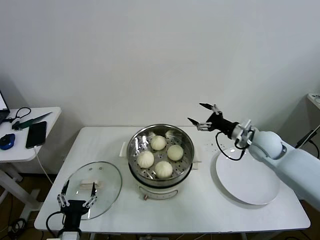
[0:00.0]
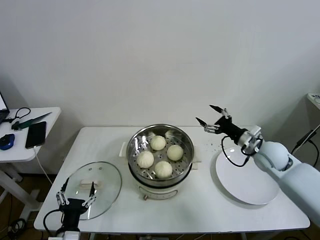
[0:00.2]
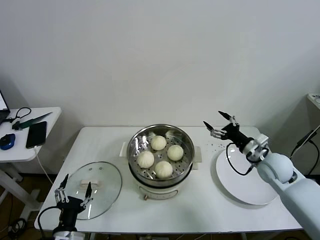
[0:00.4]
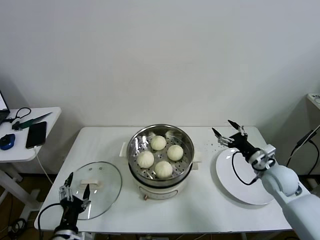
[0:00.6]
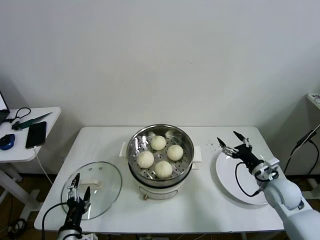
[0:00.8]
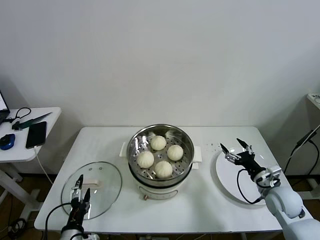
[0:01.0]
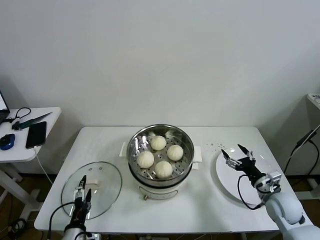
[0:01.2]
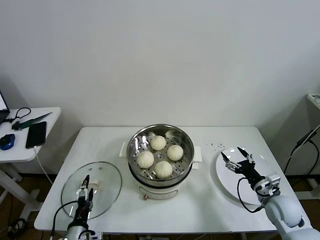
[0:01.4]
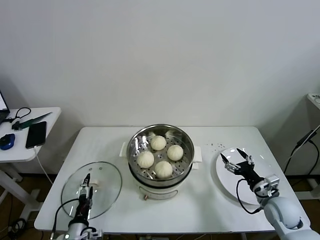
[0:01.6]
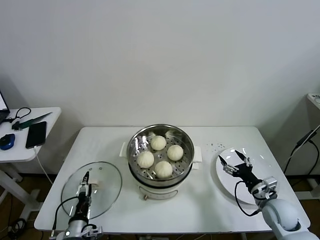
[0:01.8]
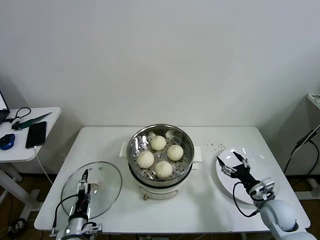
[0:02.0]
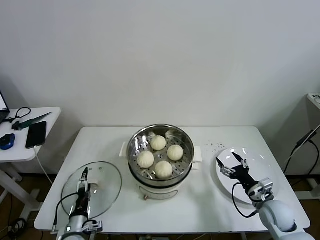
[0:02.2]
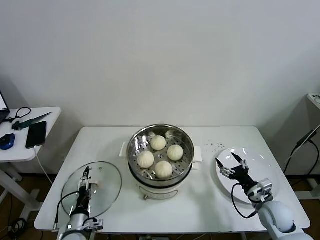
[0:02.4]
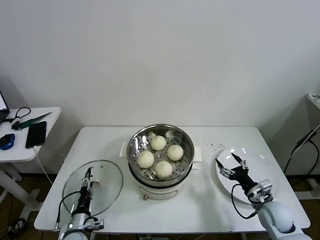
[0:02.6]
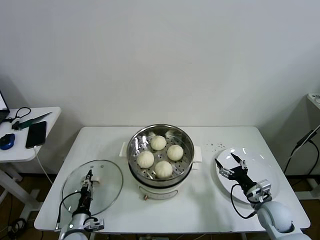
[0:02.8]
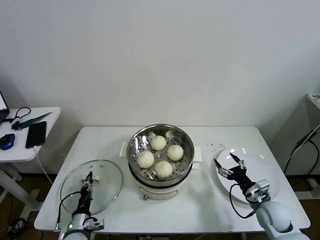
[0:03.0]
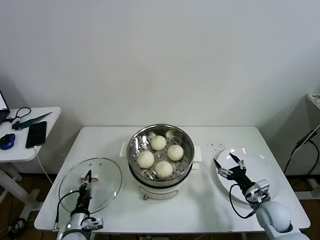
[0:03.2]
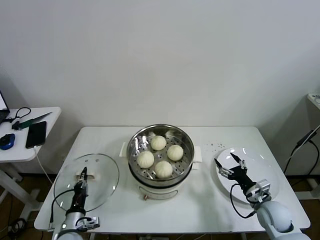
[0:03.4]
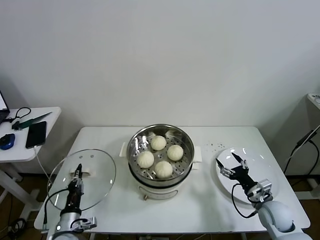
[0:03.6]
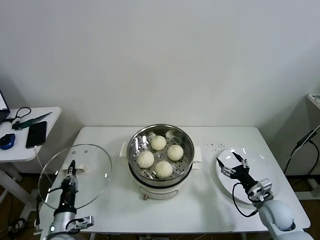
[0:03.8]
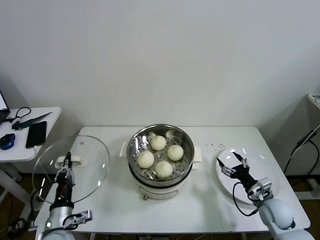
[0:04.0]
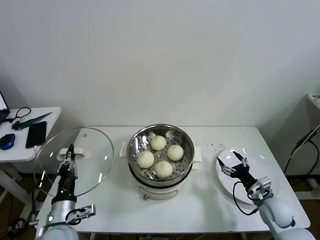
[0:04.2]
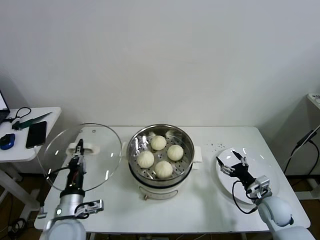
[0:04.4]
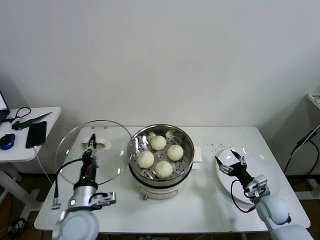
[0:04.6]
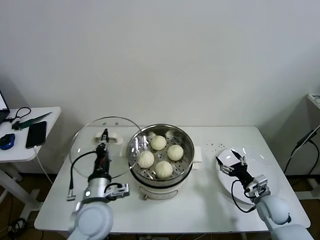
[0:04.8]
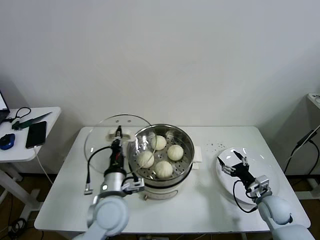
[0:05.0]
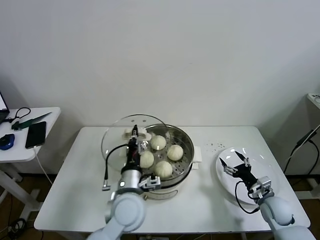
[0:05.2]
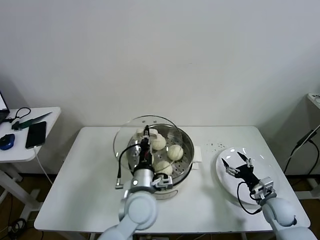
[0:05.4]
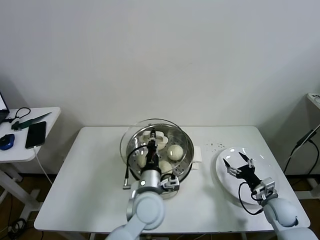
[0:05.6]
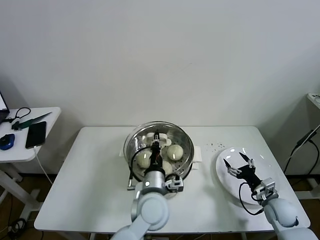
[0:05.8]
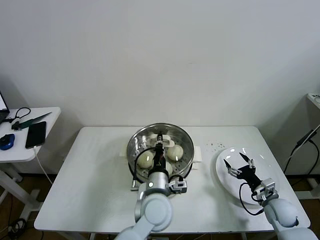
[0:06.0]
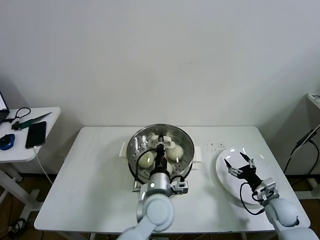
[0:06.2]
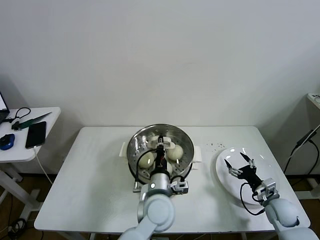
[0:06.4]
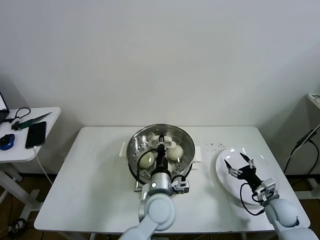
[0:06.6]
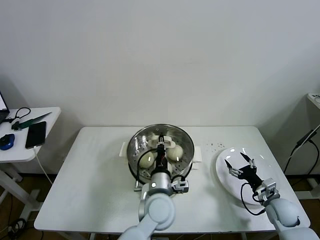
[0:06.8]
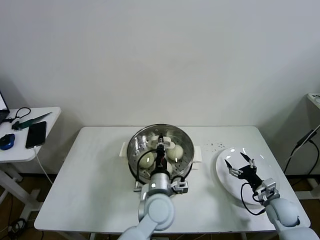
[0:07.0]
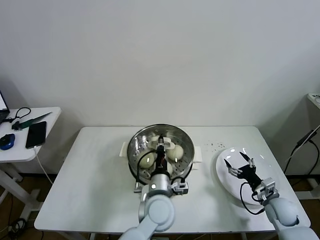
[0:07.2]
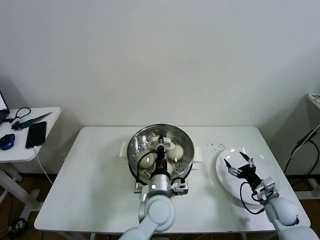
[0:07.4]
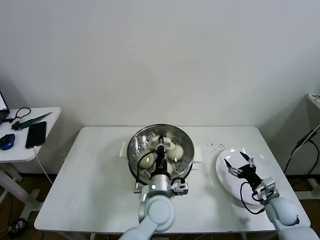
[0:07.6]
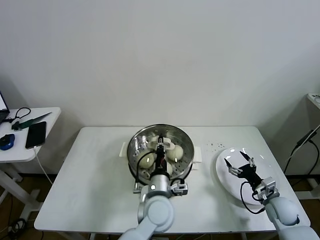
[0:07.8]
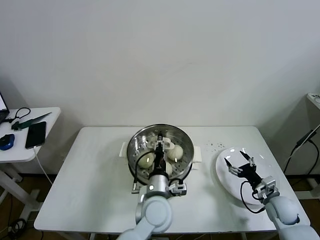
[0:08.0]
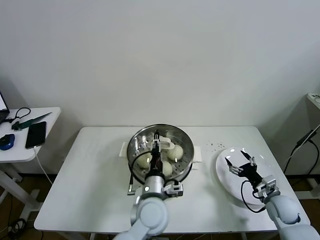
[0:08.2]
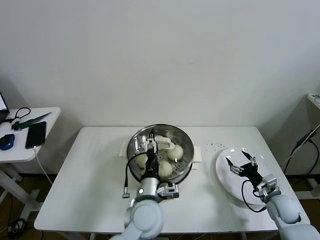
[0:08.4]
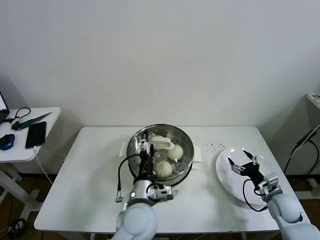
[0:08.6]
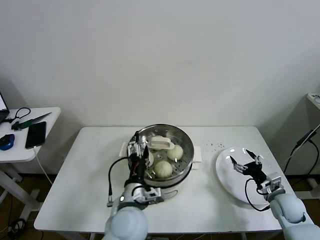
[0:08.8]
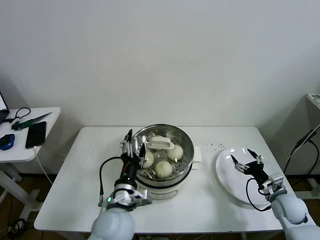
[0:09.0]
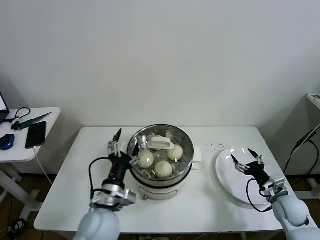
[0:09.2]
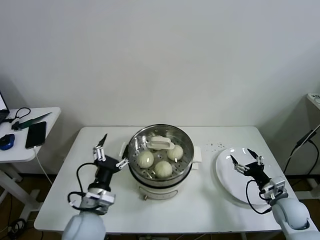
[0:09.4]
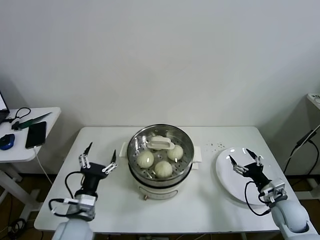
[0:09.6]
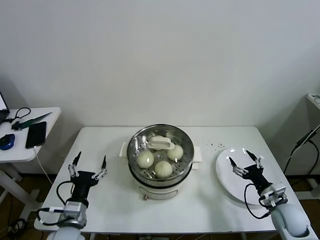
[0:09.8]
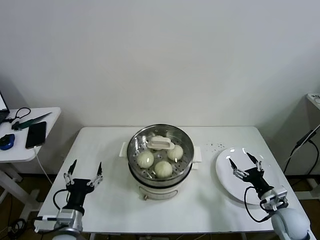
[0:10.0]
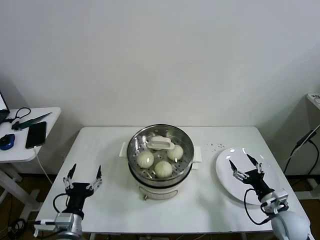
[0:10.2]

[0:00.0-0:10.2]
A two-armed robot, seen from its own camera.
Task of the whole recording: take steamed baozi put them in steamer then cover it.
Step, 0:00.0 to 0:03.0: Grasp the pot lid with left gripper.
Step, 0:03.2 to 0:08.0: Place the pot lid on the steamer with left gripper.
0:00.0 to 0:01.4: The right gripper goes some 20 cm downward and backward. The left gripper heads downward, covering roughly 5 cm.
0:01.4 to 0:03.0: The left gripper heads forward and downward, covering some 10 cm, and closes its fingers.
0:03.0 to 0:04.4: The left gripper is displaced upward by approximately 20 cm.
0:04.4 to 0:05.8: The left gripper moves to the right, roughly 25 cm.
0:05.8 to 0:07.2: The grippers make only small movements.
0:07.2 to 0:08.8: The left gripper travels to the left by roughly 5 cm, and opens up.
0:08.8 to 0:10.2: The left gripper is displaced to the left by some 20 cm. The right gripper shifts some 5 cm backward.

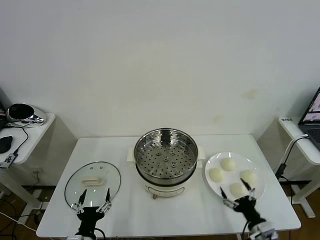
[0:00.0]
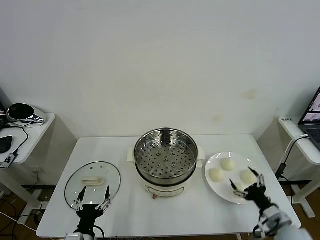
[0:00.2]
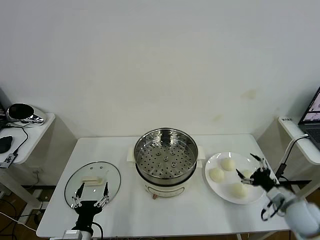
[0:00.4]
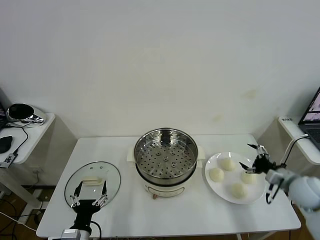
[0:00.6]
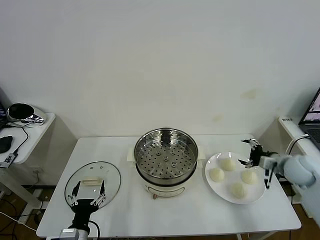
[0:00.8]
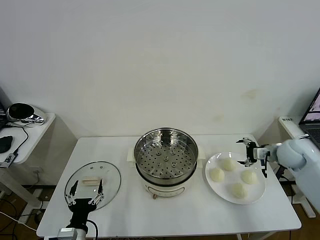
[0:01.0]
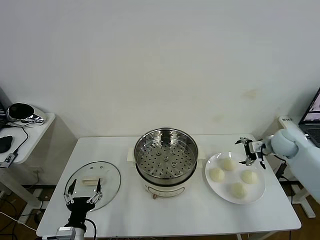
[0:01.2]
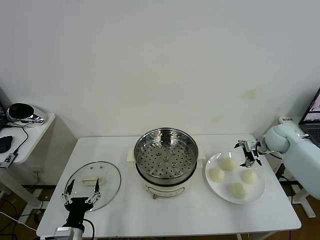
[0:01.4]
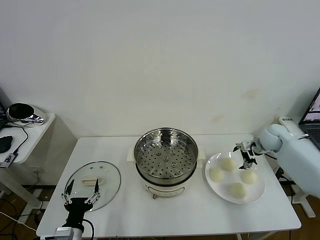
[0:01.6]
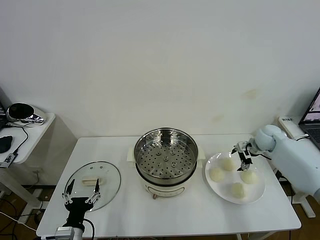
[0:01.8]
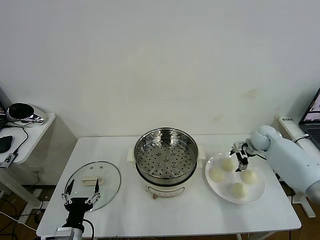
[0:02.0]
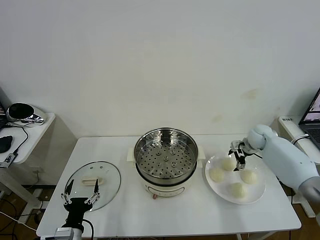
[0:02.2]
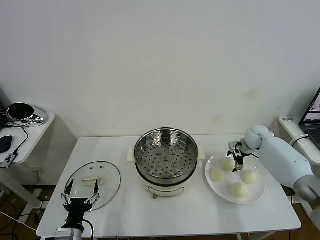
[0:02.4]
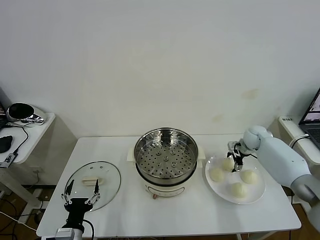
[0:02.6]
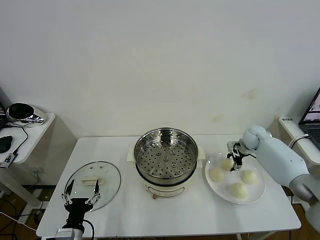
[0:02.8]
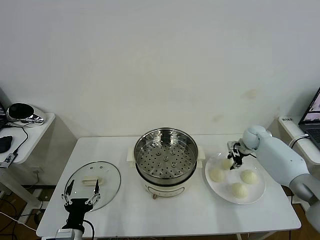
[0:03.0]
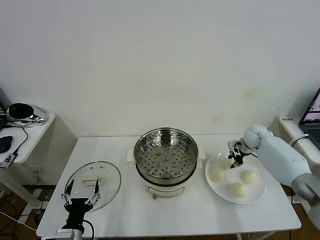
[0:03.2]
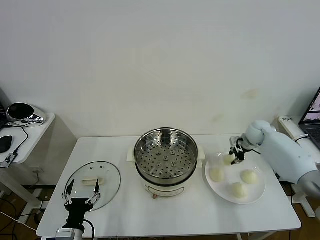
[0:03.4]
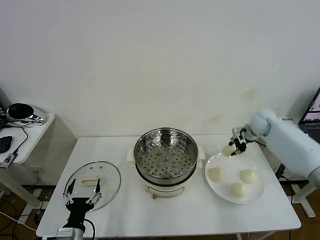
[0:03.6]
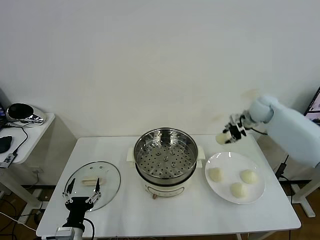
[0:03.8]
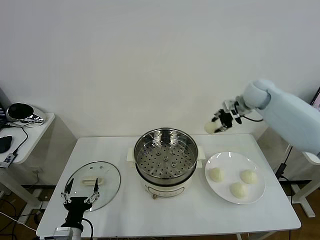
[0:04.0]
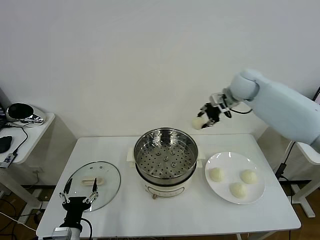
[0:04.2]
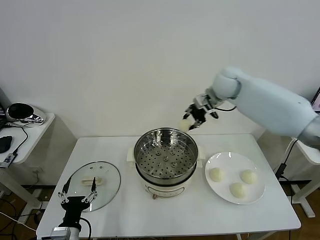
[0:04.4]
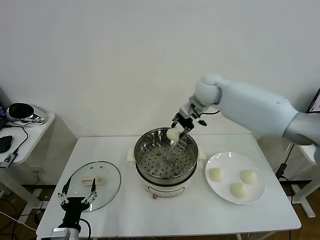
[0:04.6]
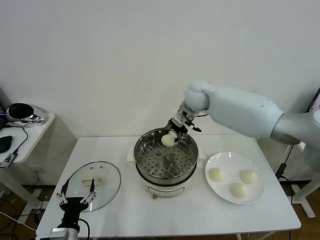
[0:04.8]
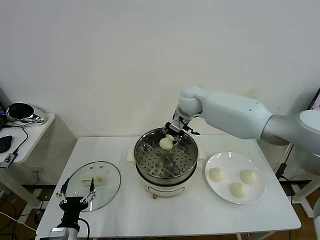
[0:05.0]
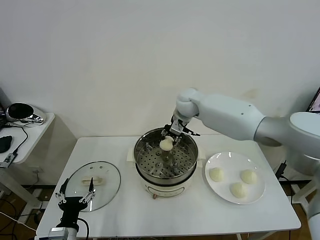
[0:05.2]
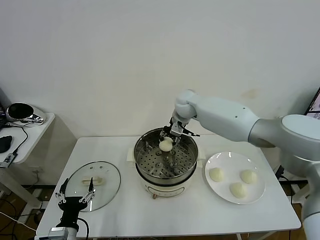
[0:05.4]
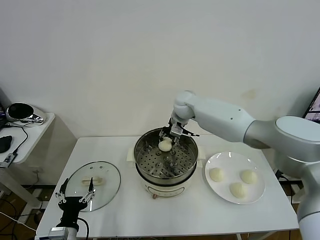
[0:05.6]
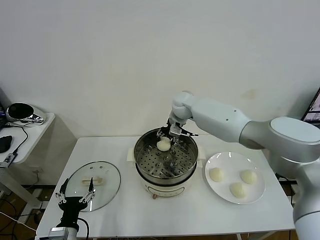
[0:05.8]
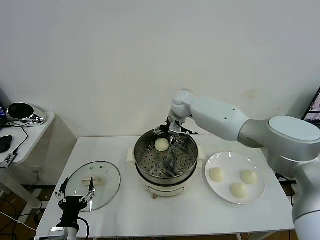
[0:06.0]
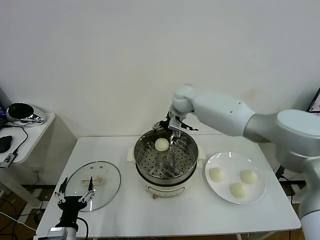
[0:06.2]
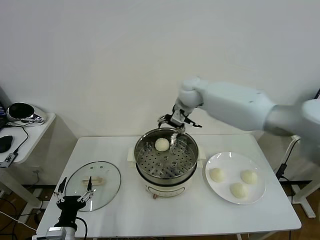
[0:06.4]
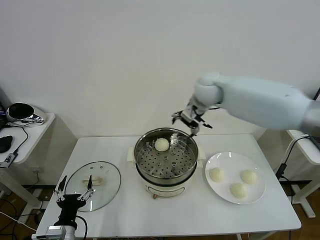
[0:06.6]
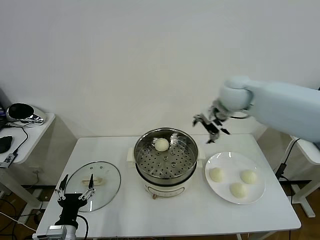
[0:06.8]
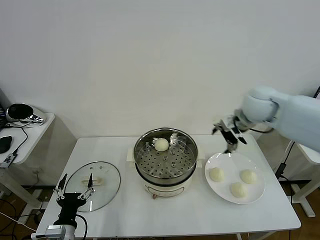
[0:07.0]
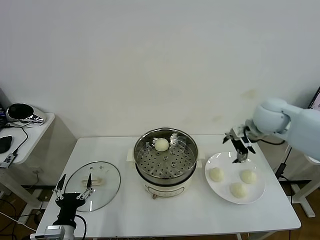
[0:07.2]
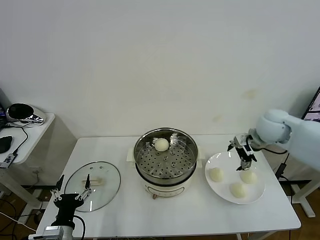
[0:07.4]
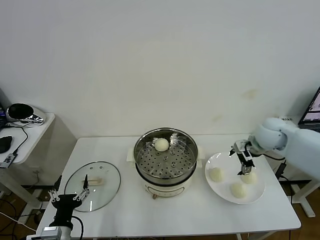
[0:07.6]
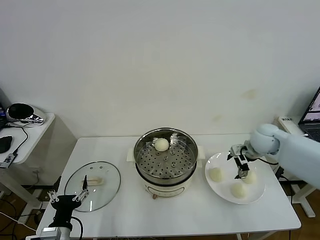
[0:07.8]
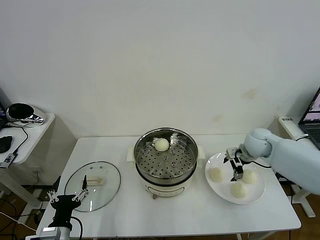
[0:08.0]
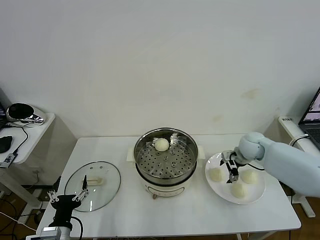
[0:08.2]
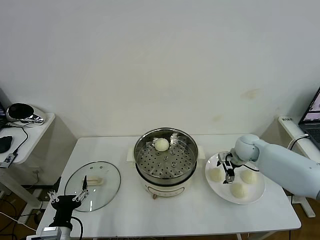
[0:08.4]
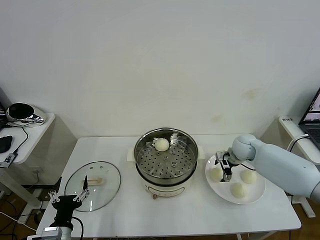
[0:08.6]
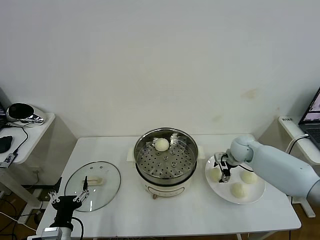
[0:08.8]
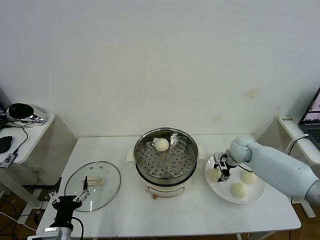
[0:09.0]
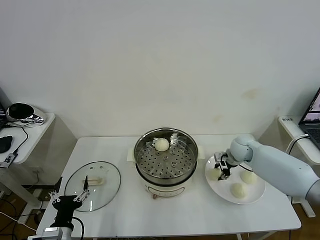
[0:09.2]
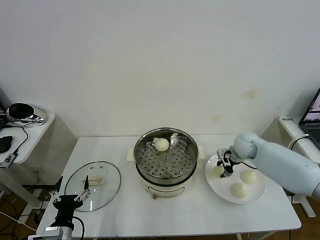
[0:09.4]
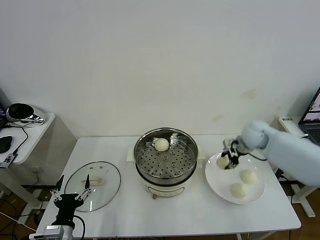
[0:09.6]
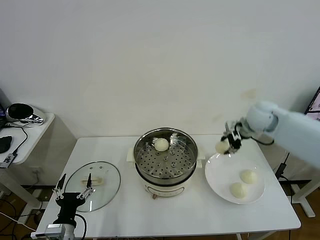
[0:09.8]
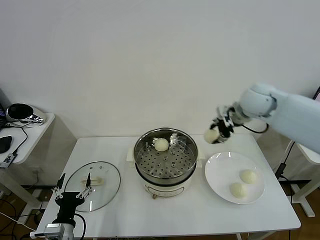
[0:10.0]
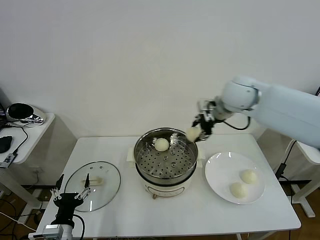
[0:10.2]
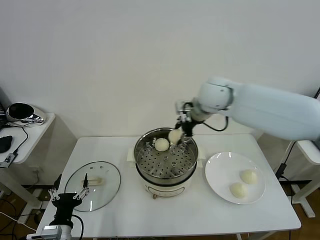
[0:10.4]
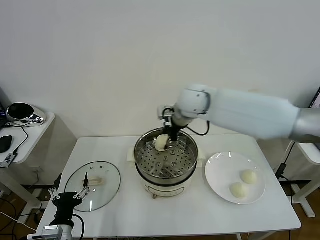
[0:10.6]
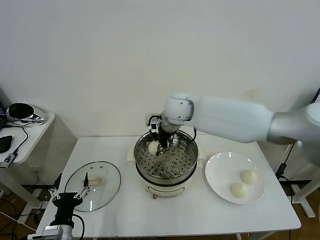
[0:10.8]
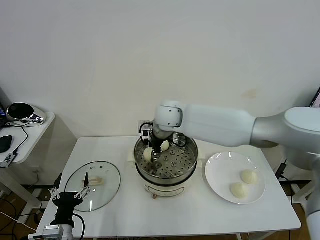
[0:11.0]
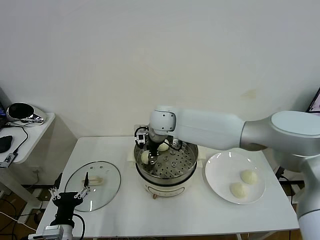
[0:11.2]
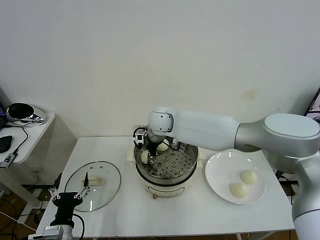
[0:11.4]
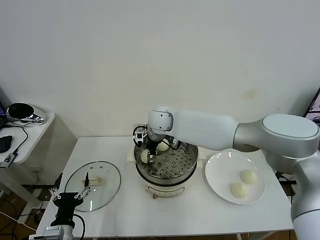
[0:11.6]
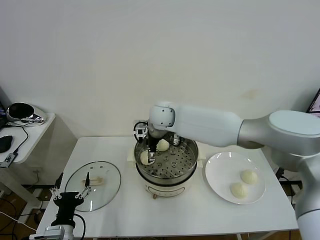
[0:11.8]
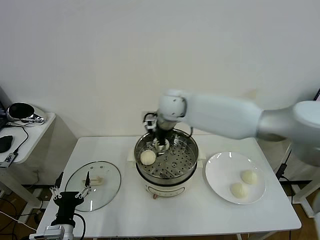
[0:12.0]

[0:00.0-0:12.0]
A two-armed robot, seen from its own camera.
Task of the whole recording: take steamed baozi put them in steamer then cover it.
Step, 0:00.0 to 0:03.0: Grasp the baozi in the plate with right gripper.
Step, 0:03.2 to 0:06.0: Place the baozi on the steamer with right gripper.
Step, 0:06.2 to 0:09.0: Grasp the baozi in the plate with right gripper.
Step, 0:09.2 to 0:11.8: Place the baozi on the steamer with right gripper.
0:01.6 to 0:03.0: The right gripper shifts by some 5 cm, and closes up.
0:03.0 to 0:04.4: The right gripper moves upward and to the left, roughly 30 cm.
0:04.4 to 0:06.0: The right gripper moves to the left and downward, roughly 10 cm, and opens.
0:06.0 to 0:07.6: The right gripper is displaced to the right and backward by about 30 cm.
0:07.6 to 0:09.0: The right gripper heads downward, covering some 10 cm, and closes its fingers.
0:09.0 to 0:10.4: The right gripper goes some 30 cm upward and to the left.
0:10.4 to 0:12.0: The right gripper goes some 5 cm to the left, and opens up.
